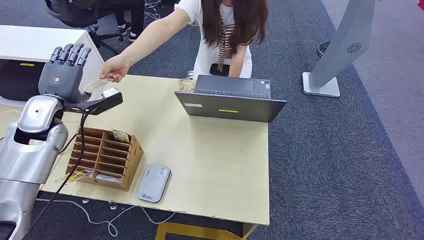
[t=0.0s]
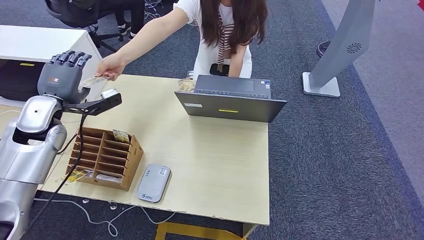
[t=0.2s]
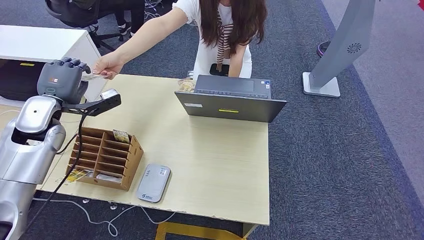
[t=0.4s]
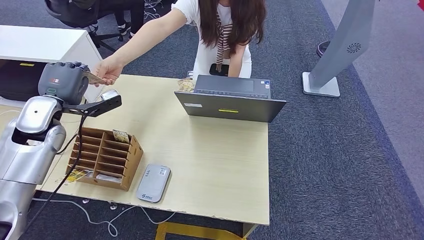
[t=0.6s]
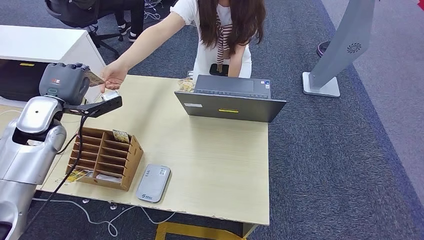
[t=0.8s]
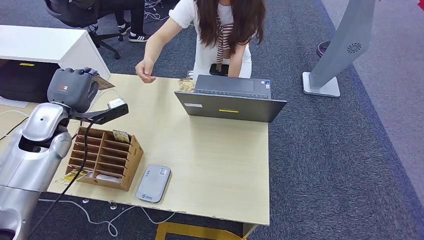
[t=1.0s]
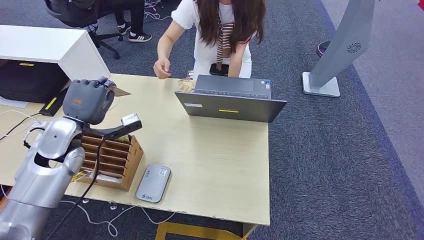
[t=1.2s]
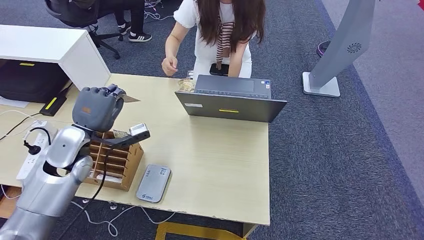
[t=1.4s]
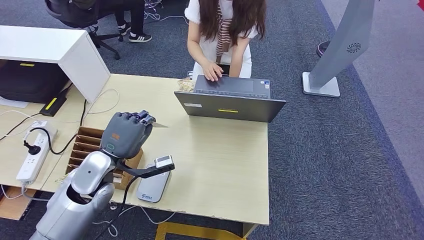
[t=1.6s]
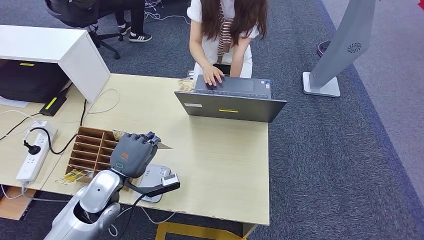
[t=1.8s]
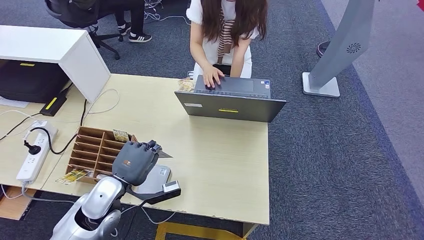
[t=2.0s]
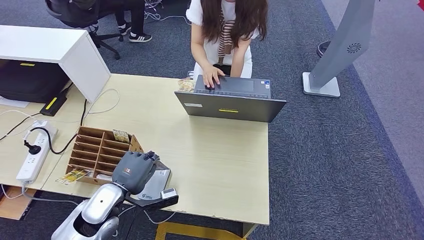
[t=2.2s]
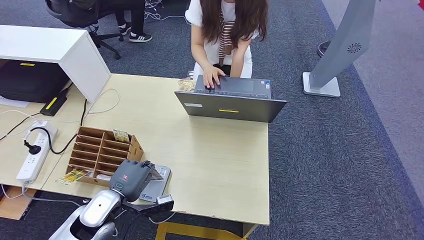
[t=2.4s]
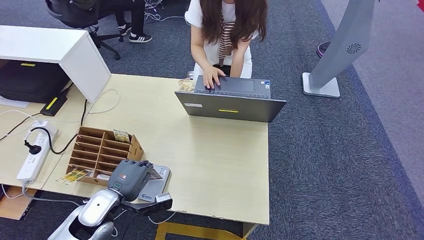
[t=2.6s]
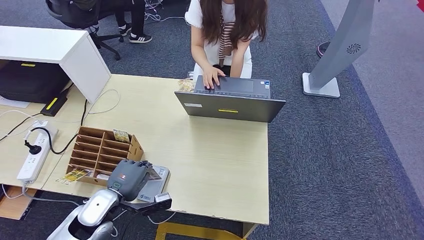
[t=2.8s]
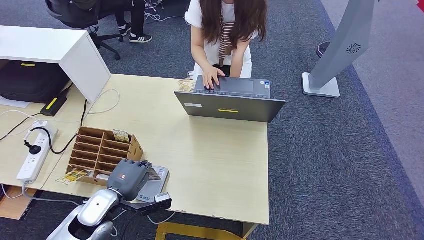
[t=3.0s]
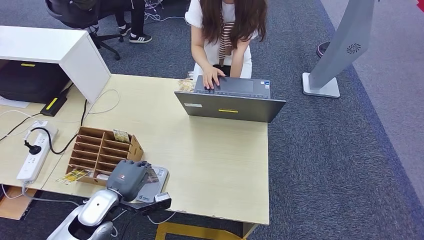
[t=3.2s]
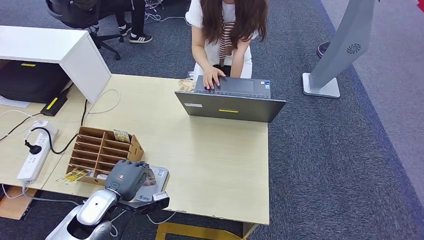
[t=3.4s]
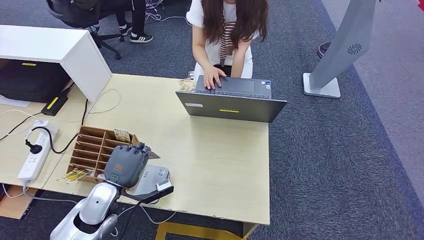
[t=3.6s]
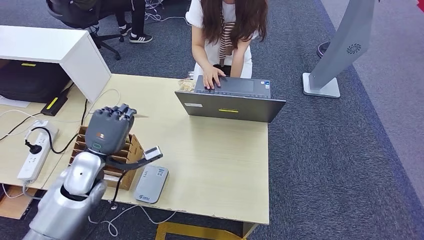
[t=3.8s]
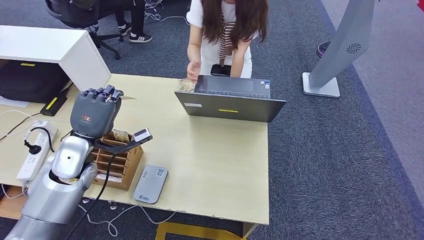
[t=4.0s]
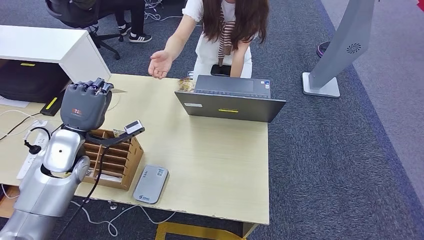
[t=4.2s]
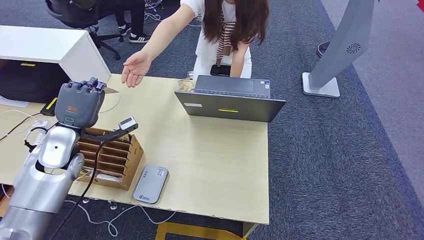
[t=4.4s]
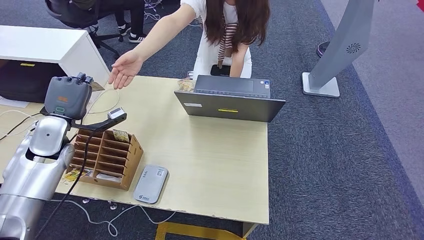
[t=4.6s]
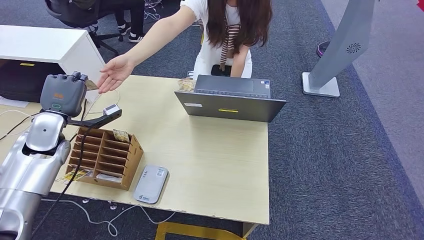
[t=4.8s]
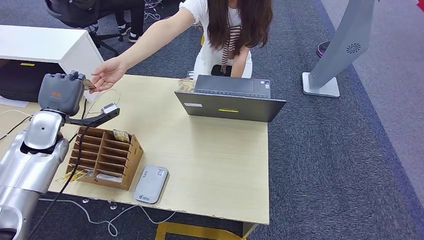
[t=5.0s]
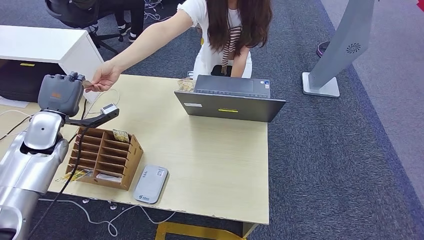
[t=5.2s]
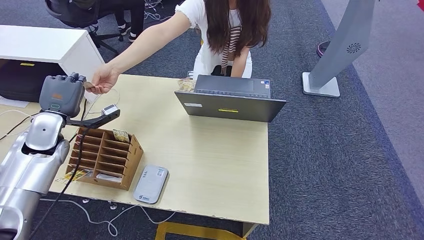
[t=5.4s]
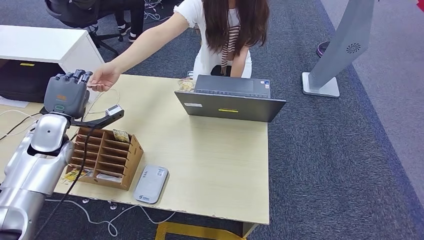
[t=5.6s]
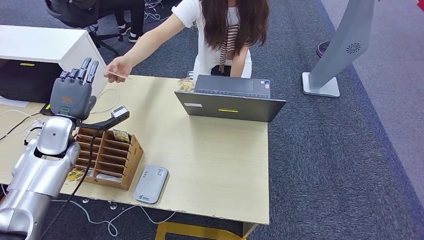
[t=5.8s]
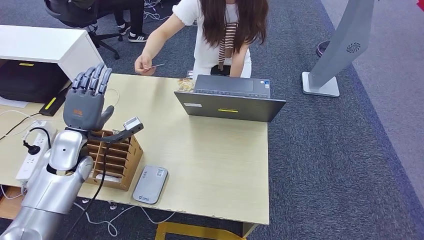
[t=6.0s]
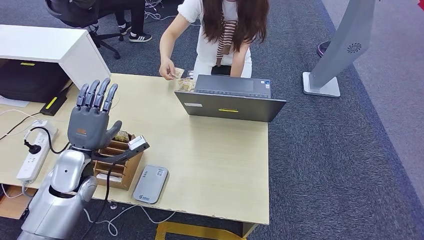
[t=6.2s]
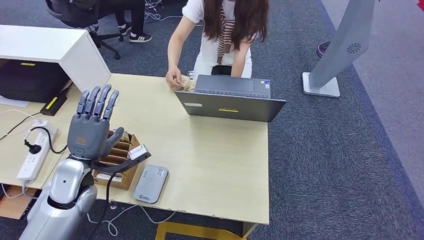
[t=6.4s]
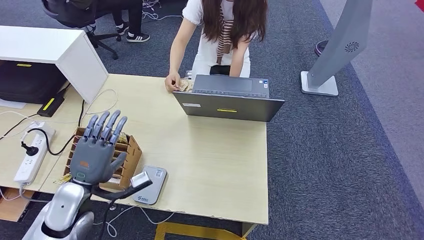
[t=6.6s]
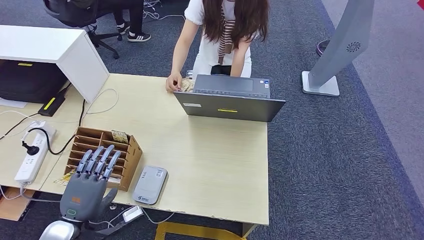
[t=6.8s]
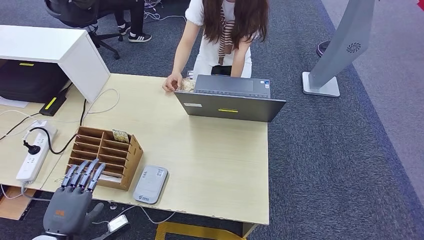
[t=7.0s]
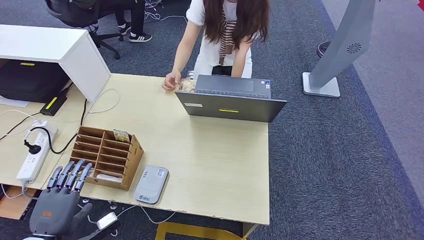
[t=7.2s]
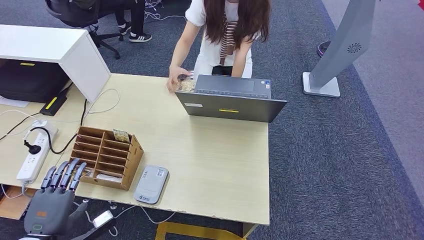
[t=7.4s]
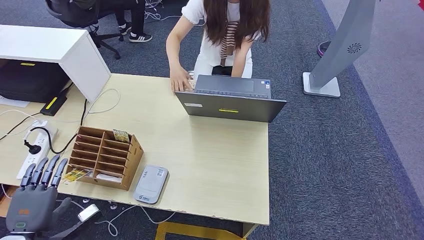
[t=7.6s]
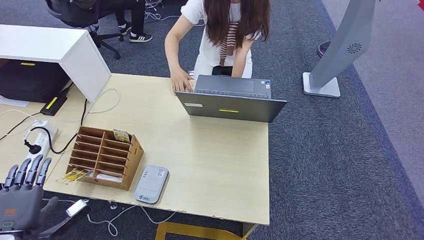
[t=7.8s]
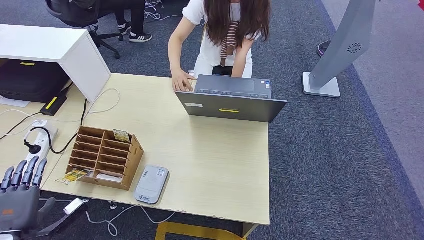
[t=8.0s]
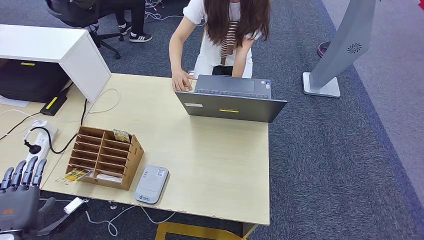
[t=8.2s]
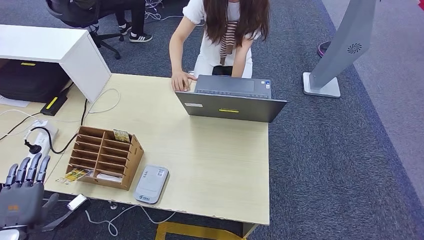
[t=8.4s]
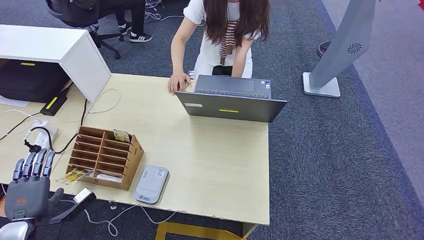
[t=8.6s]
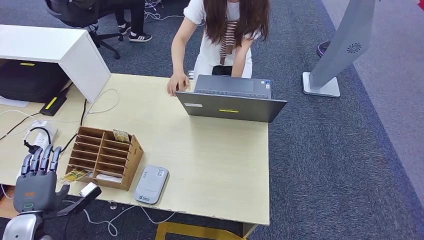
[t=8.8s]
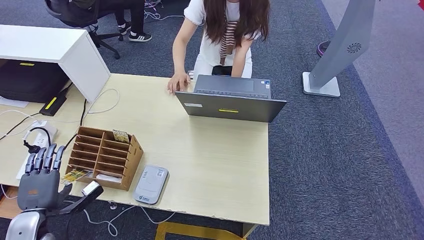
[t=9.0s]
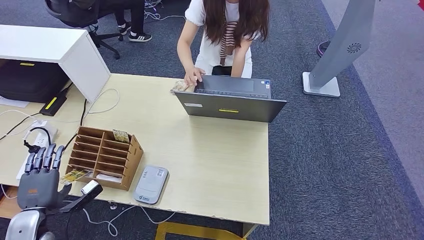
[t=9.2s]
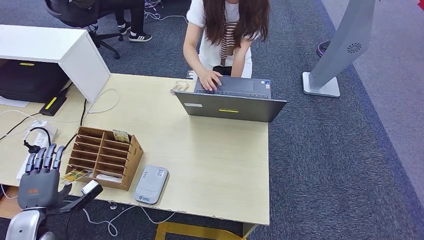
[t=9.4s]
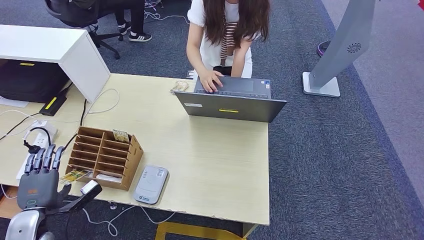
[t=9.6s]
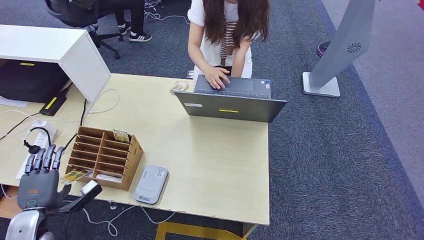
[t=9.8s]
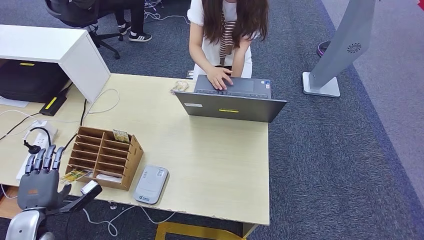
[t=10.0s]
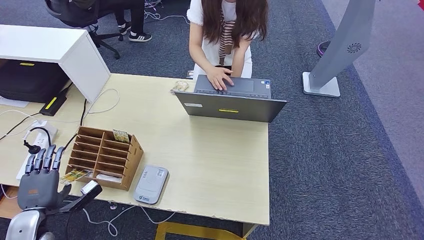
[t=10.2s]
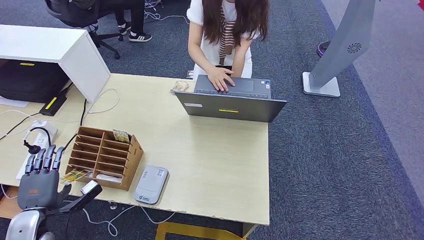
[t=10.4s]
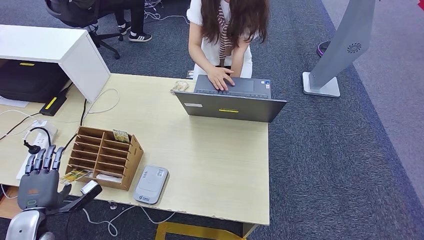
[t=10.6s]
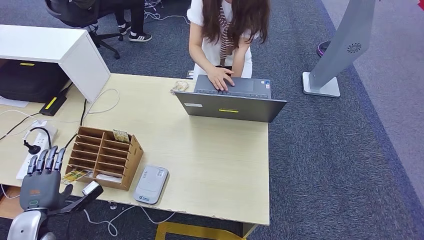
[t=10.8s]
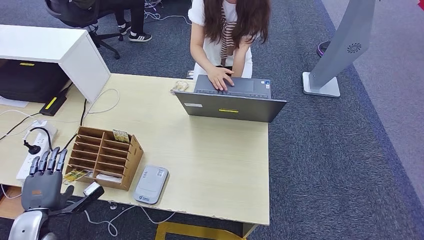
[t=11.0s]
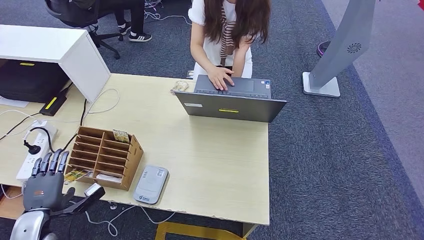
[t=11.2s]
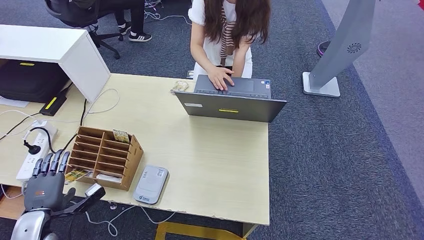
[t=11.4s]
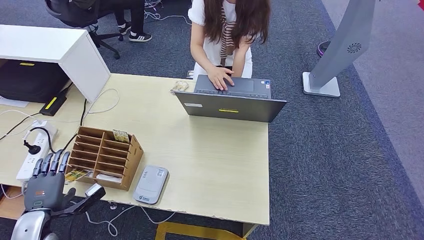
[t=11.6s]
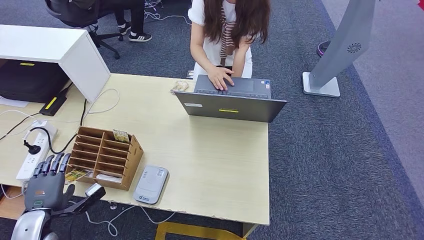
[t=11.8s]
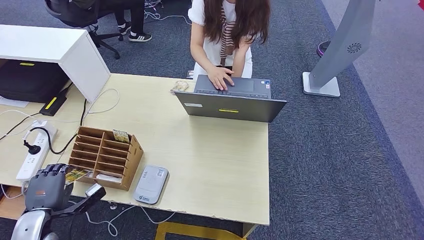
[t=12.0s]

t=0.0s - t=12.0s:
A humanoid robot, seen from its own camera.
Step, t=0.0s - t=2.0s: Take the ID card from the person's hand.
Step, t=2.2s - t=4.0s: Place the ID card on the card reader.
Step, t=4.2s - t=8.0s: Hand the ID card to the person.
t=1.6s - t=3.0s: The left hand is displaced downward and backward by some 10 cm.
t=3.0s - t=4.4s: The left hand is displaced upward, forward and to the left by about 20 cm.
t=6.0s - t=7.6s: The left hand travels backward by some 20 cm.
t=7.6s - t=9.0s: The left hand is displaced forward by roughly 5 cm.
t=9.0s - t=10.4s: Both hands stay put.
t=10.4s - t=12.0s: The hands move only a little.

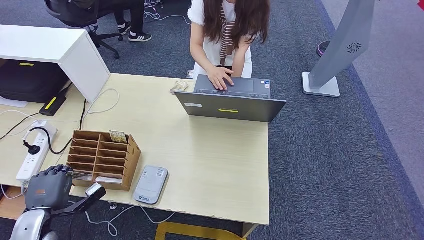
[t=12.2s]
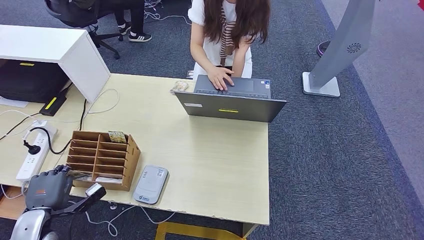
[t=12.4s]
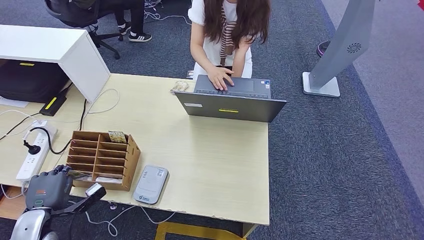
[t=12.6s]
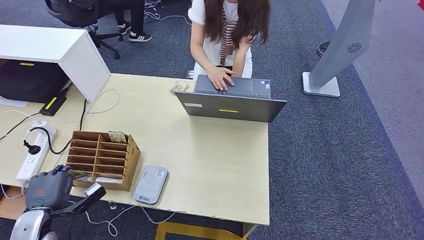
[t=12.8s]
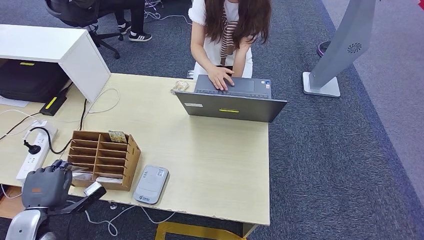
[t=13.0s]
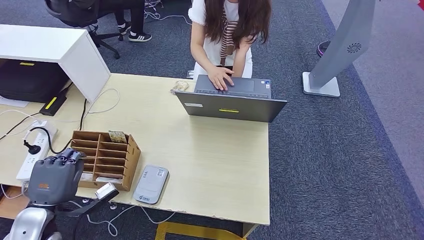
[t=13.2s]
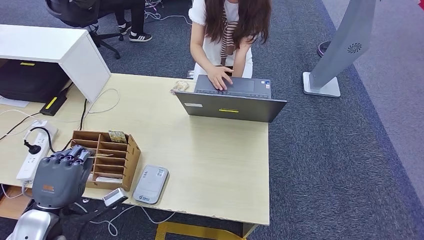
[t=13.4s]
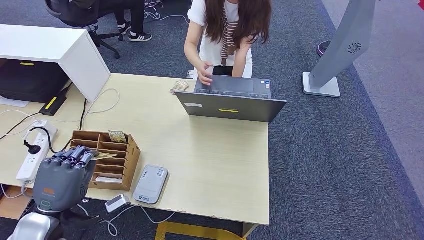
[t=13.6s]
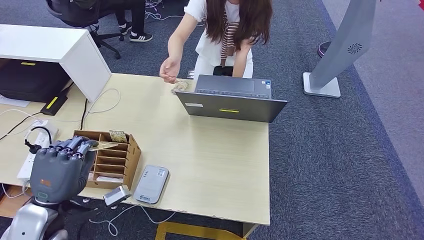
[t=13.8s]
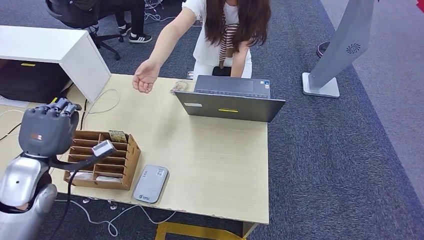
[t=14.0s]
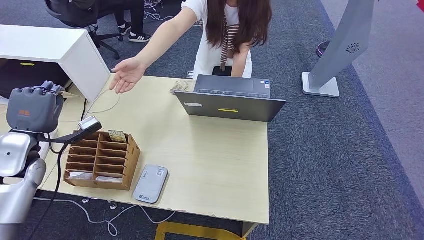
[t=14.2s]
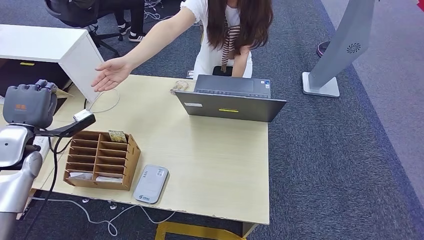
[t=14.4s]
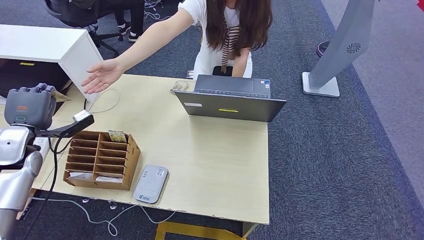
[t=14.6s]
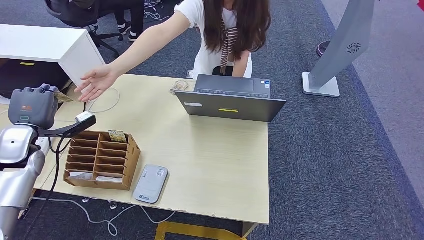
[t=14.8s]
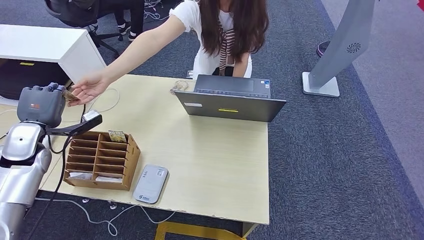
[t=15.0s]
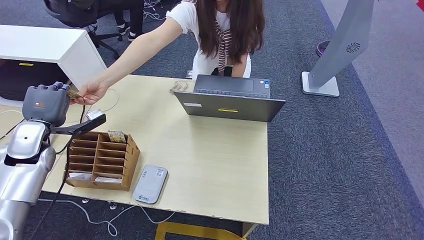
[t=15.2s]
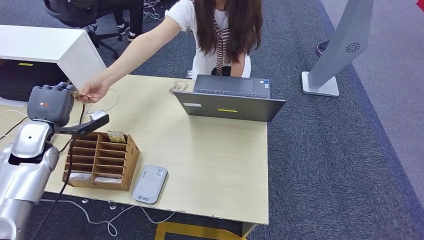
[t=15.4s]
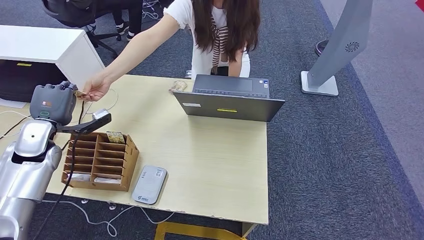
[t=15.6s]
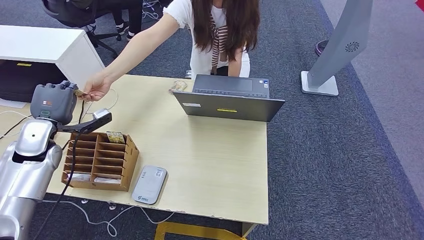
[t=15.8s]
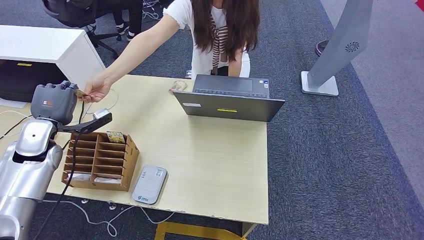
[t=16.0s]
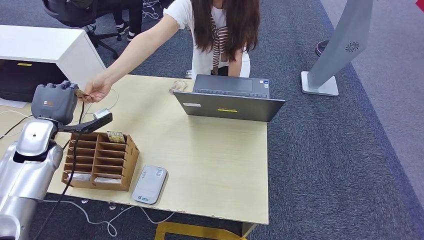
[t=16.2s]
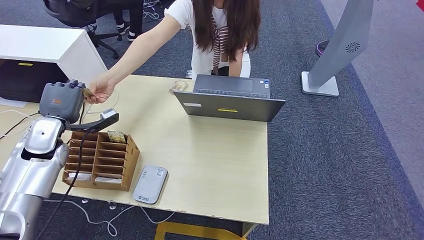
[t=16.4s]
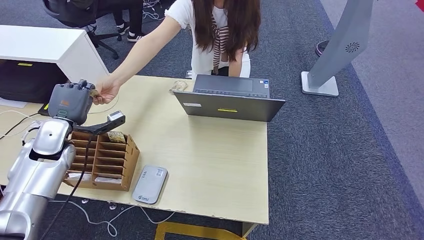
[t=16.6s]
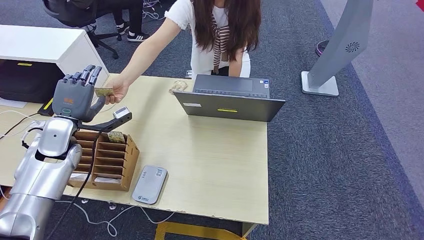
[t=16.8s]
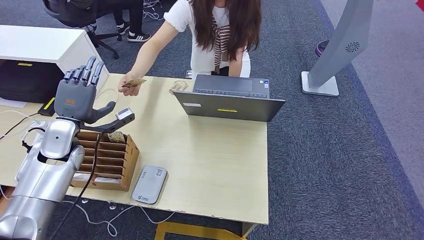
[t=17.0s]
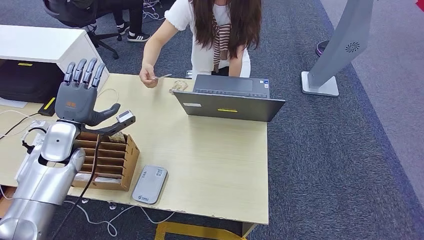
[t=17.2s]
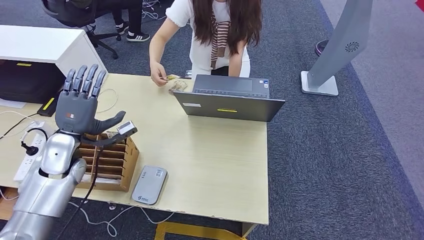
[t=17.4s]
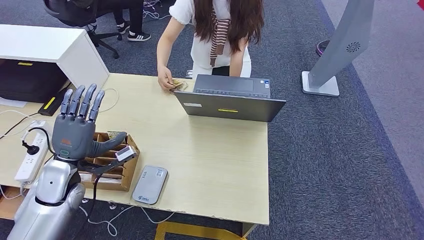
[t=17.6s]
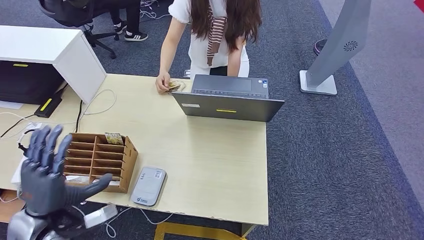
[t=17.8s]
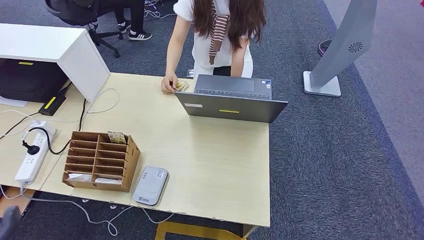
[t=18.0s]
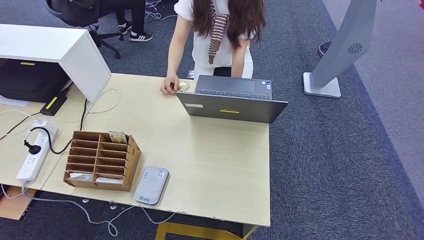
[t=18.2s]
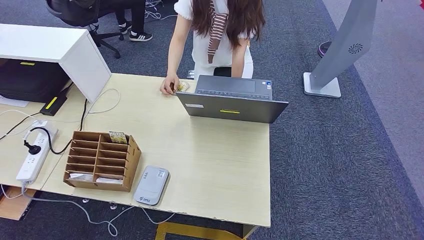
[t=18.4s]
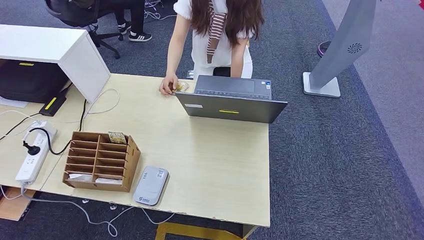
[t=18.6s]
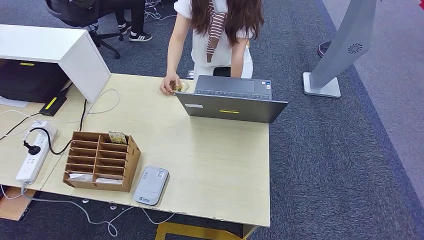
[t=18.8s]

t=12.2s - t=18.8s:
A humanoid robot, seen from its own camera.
Step, t=12.2s - t=14.2s: Pick up the room key from the key card box.
t=12.2s - t=13.8s: The left hand moves upward and to the right, approximately 15 cm.
t=15.4s - t=17.2s: The left hand heads to the right, covering some 5 cm.
t=17.2s - t=18.8s: The left hand heads backward, covering roughly 35 cm.
